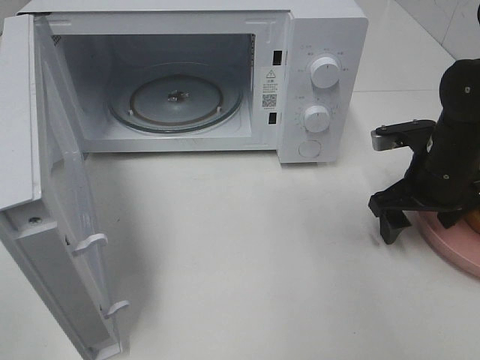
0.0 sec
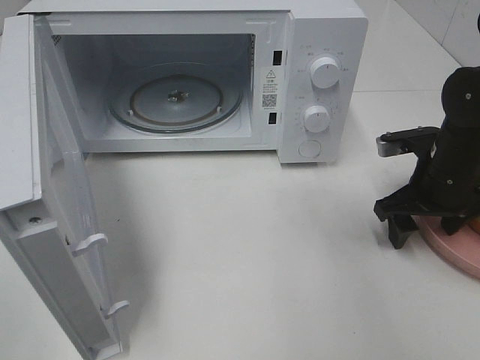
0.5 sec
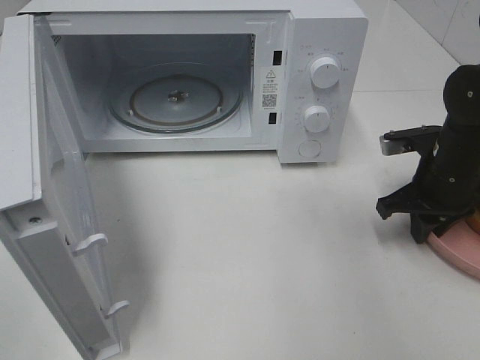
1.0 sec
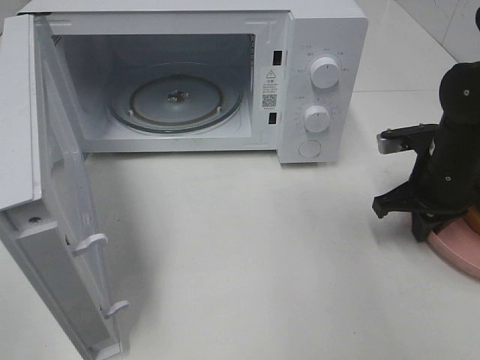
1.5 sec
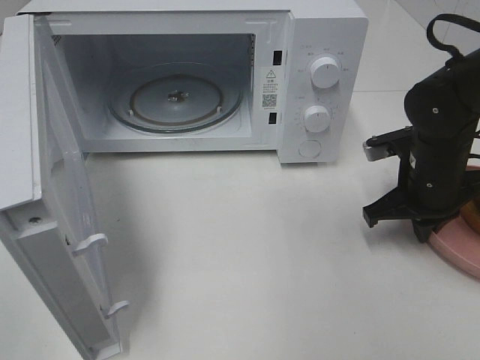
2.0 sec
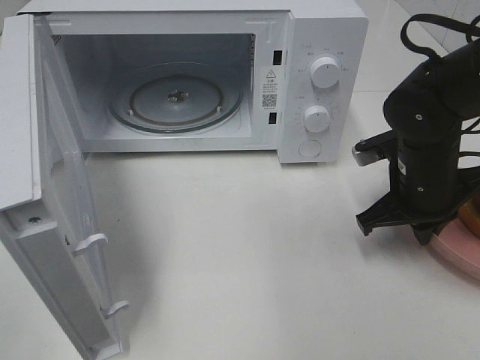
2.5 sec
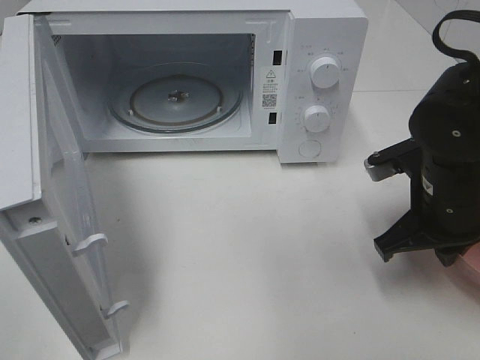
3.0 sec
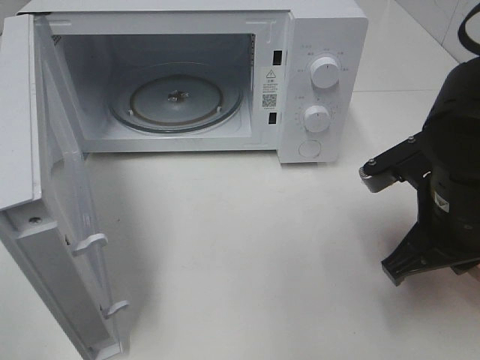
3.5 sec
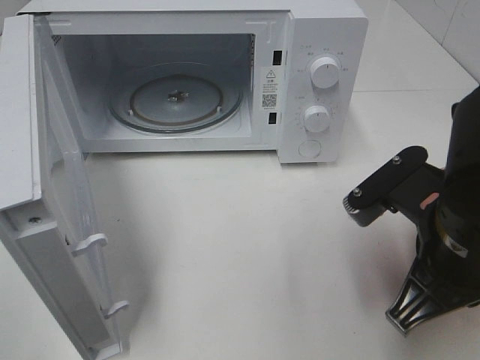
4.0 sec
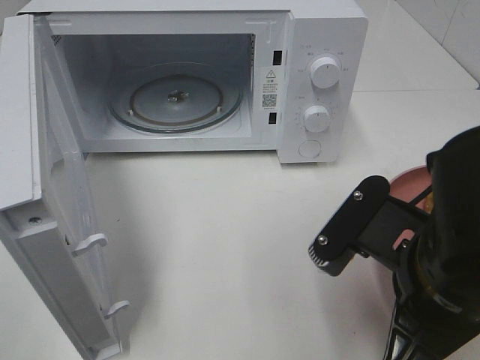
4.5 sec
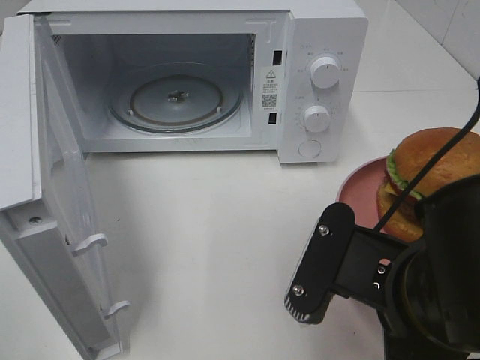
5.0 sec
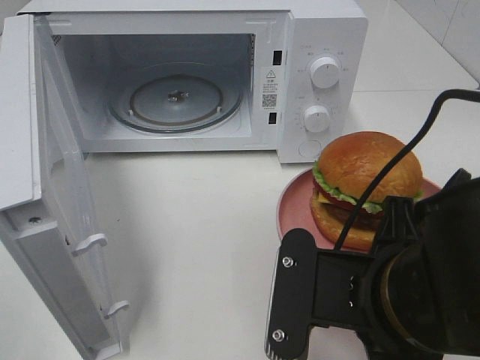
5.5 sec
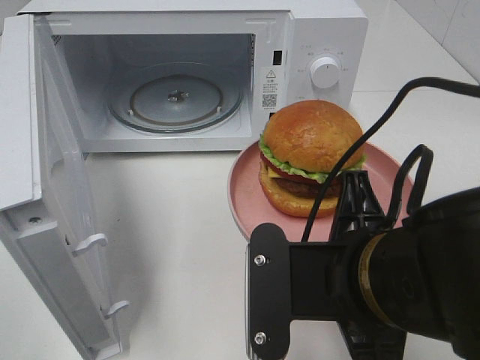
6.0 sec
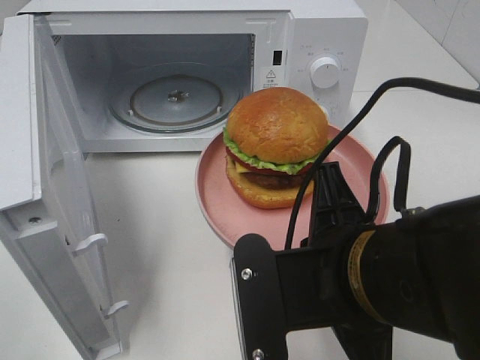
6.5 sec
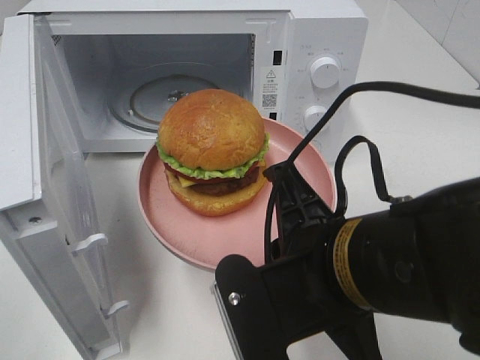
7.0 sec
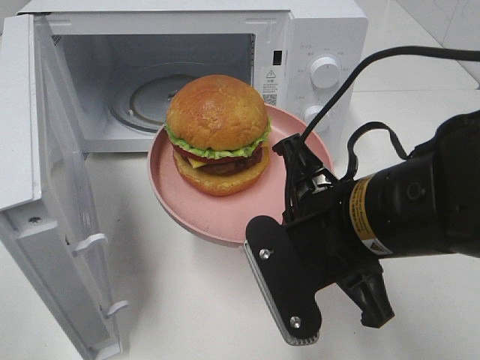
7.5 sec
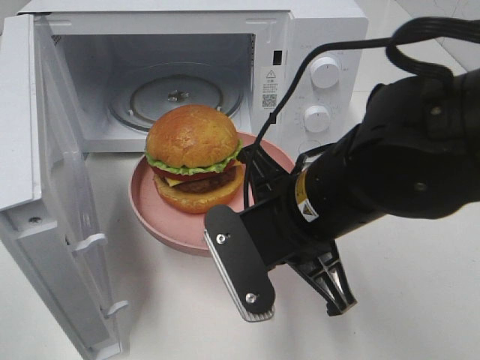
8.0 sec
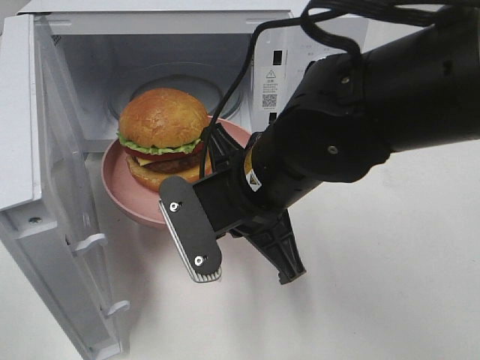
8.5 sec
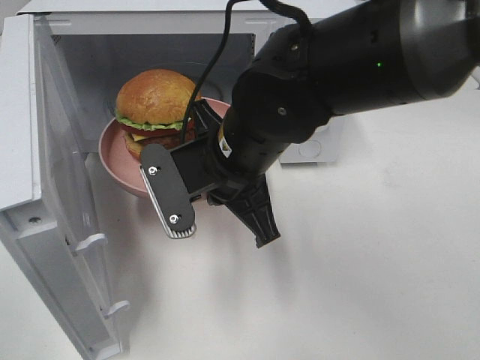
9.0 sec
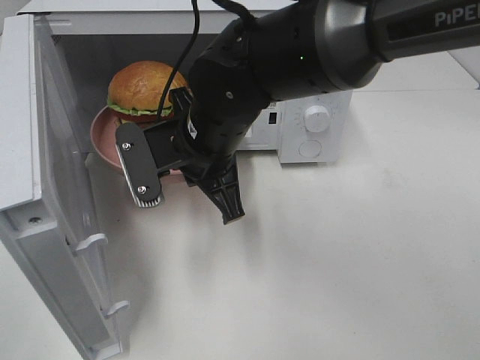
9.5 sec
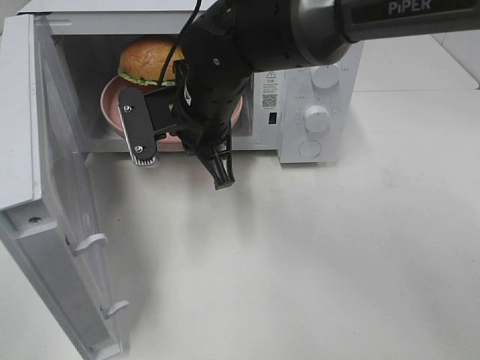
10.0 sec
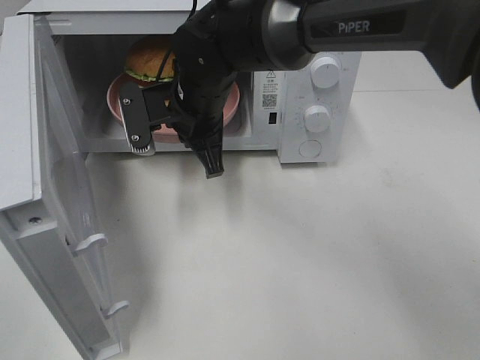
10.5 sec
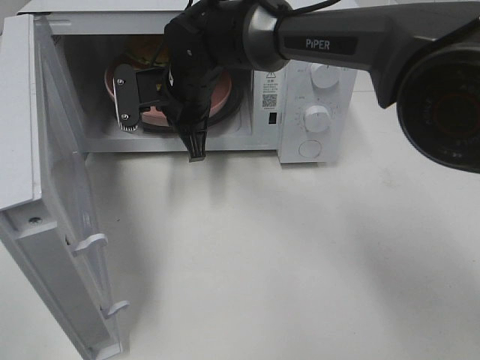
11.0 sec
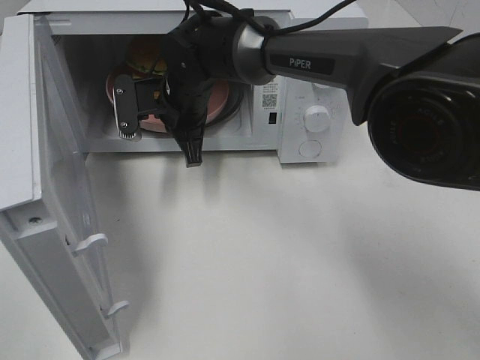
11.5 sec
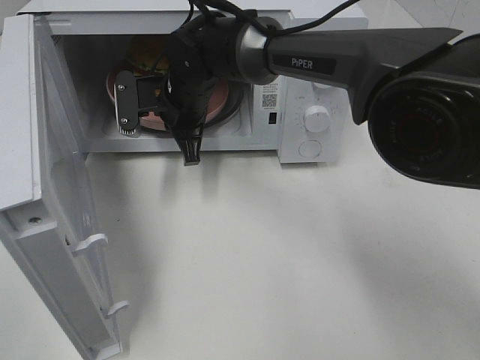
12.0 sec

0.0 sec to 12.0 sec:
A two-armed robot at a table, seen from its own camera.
Task of the whole recording: Heat the burger.
0.0 sec to 2.0 sec: The right gripper closes.
2.0 sec to 4.0 sec: The right gripper moves backward, upward and to the left, some 20 cm.
4.0 sec to 6.0 sec: The right gripper travels to the left by about 5 cm.
6.0 sec to 8.0 sec: The right gripper shifts about 10 cm forward.
8.0 sec to 10.0 sec: The right gripper moves forward and to the left, some 15 cm.
10.0 sec to 12.0 sec: The right gripper heads forward, covering some 10 cm.

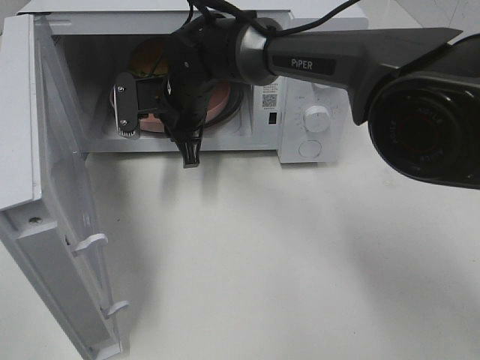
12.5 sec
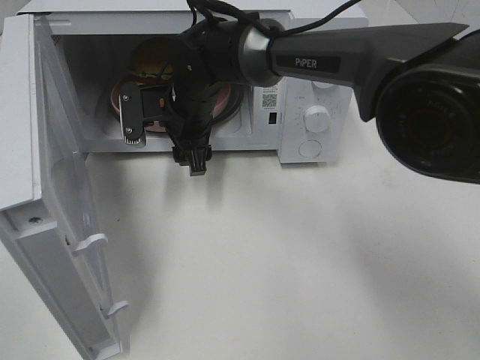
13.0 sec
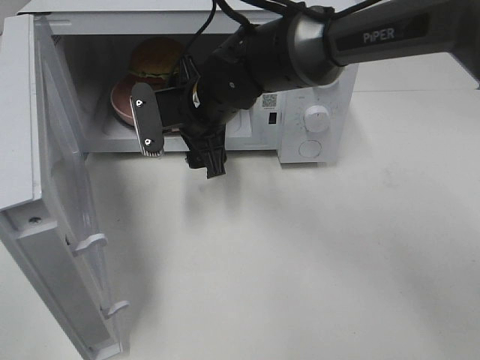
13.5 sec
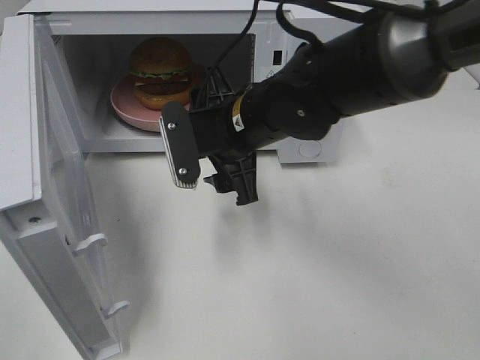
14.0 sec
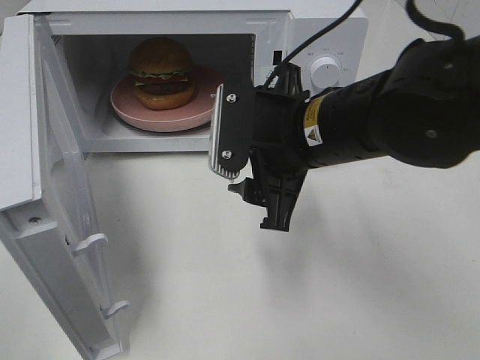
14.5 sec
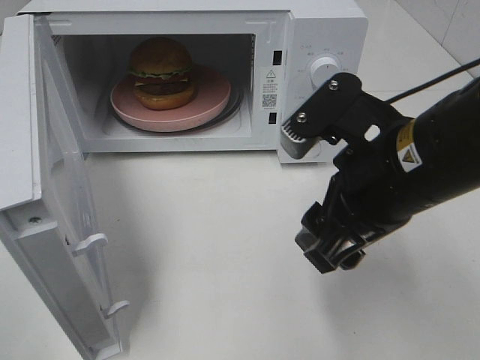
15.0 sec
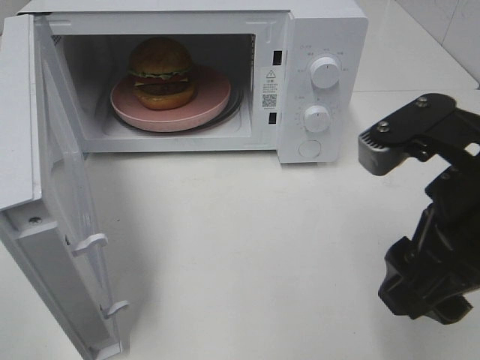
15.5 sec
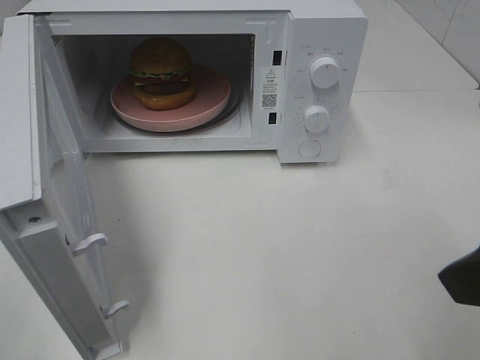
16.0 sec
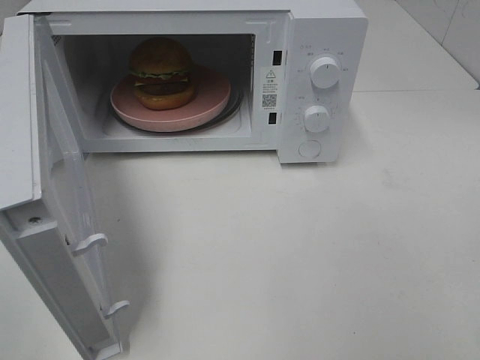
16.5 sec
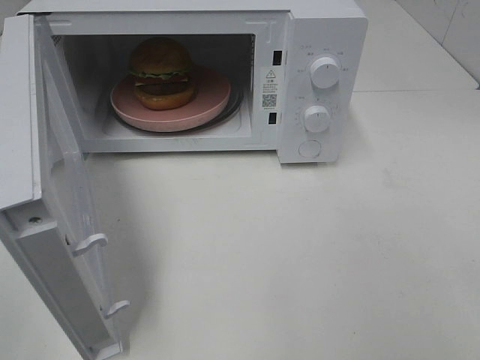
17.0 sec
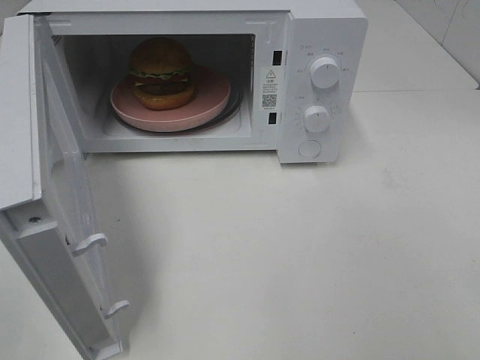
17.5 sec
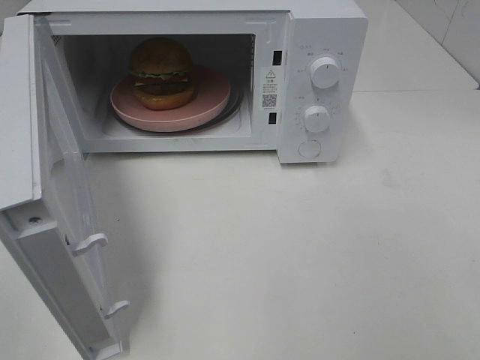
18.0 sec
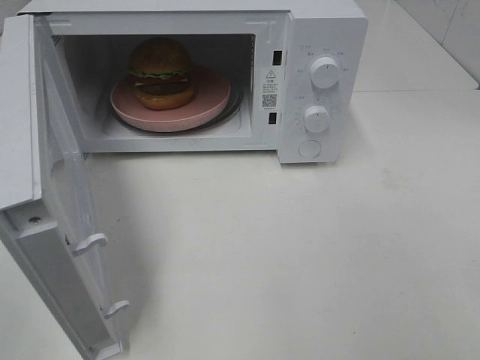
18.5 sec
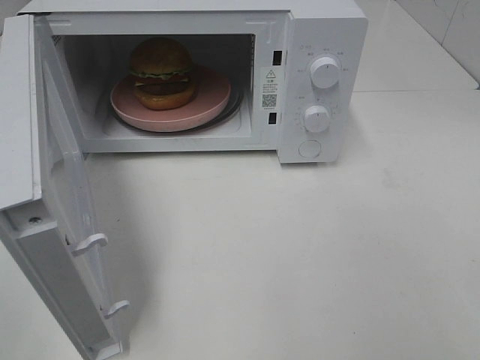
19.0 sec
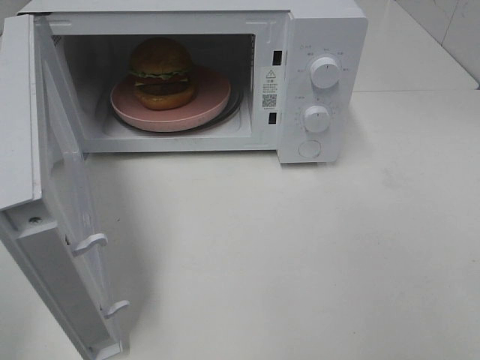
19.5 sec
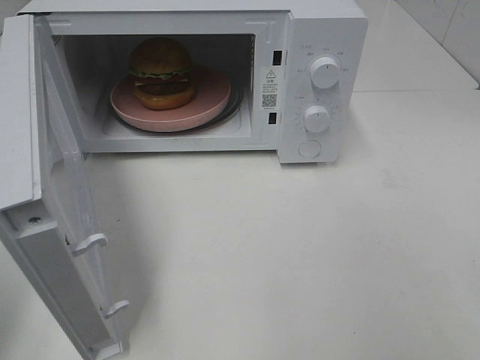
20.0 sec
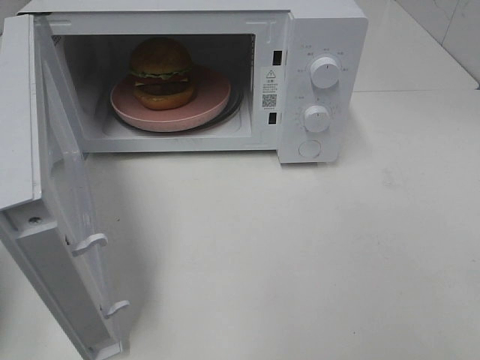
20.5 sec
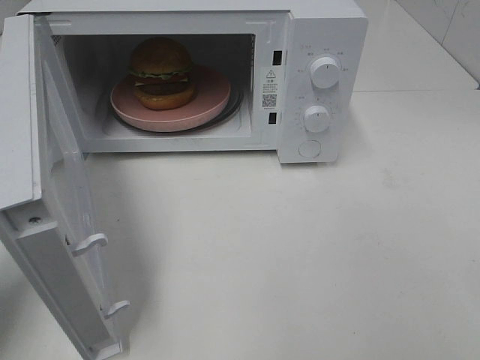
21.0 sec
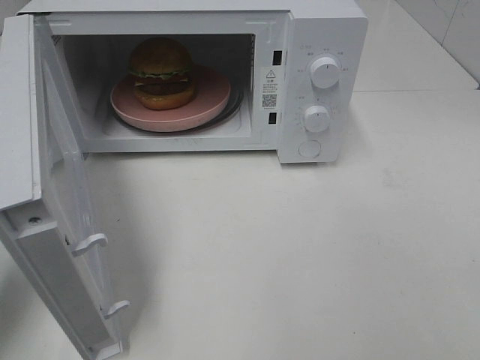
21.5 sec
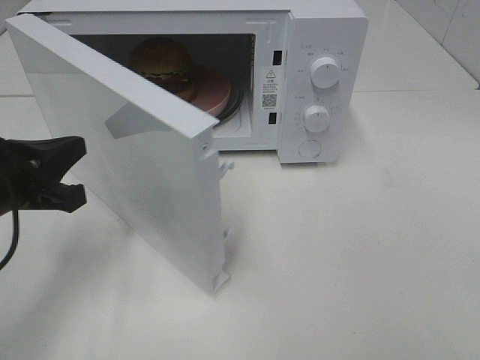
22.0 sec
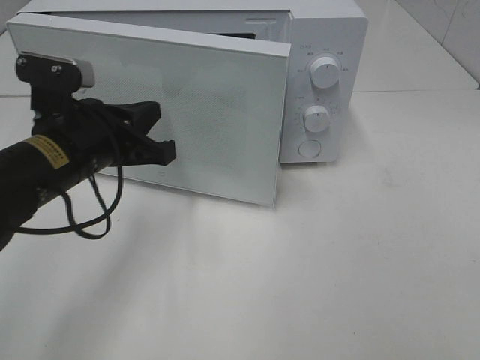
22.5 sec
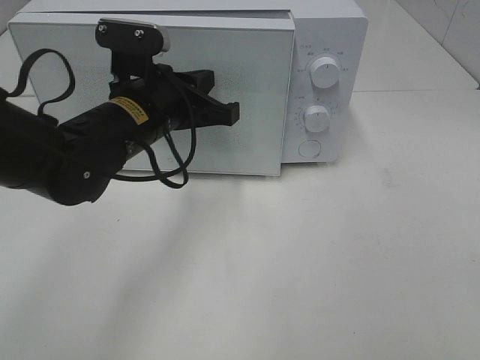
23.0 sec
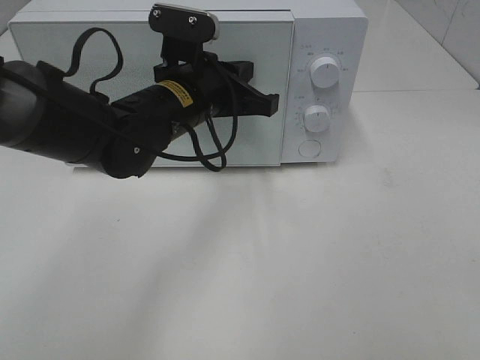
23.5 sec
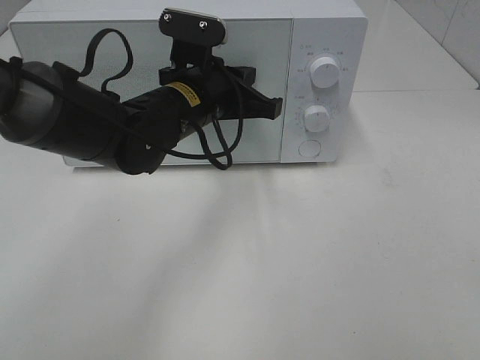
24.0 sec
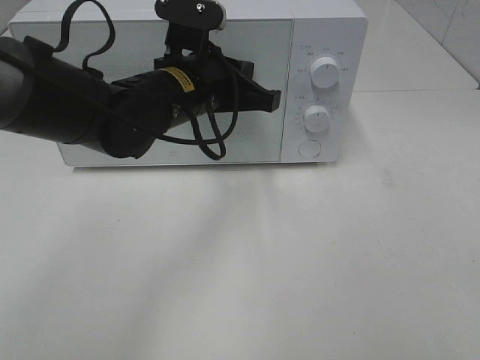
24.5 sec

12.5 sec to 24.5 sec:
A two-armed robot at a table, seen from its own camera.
Task of the whole recording: Heat the burger.
Step, 13.5 sec to 24.5 sec: Left hand: close the microwave door.
12.5 sec to 14.5 sec: The right gripper moves backward and to the right, approximately 20 cm, and opens its fingers.
14.5 sec to 16.5 sec: The right gripper travels to the right, backward and upward by approximately 30 cm.
20.5 sec to 22.5 sec: The left gripper travels to the right and forward by about 25 cm.
22.5 sec to 24.5 sec: The left gripper heads to the right and forward, covering approximately 10 cm.

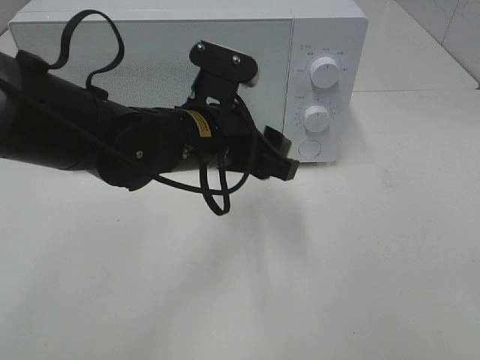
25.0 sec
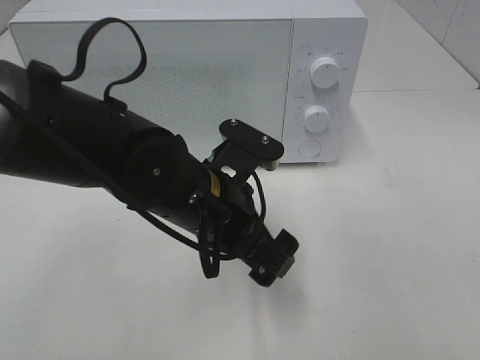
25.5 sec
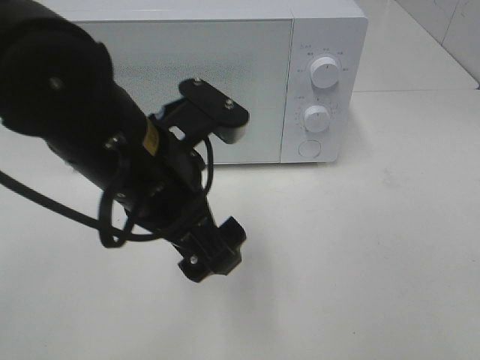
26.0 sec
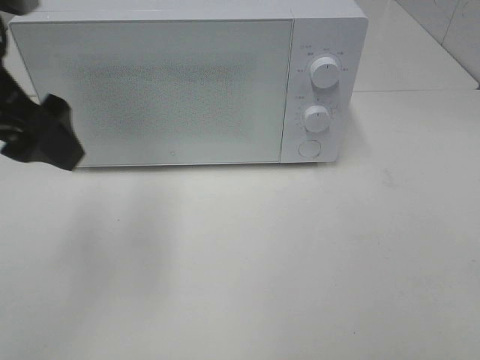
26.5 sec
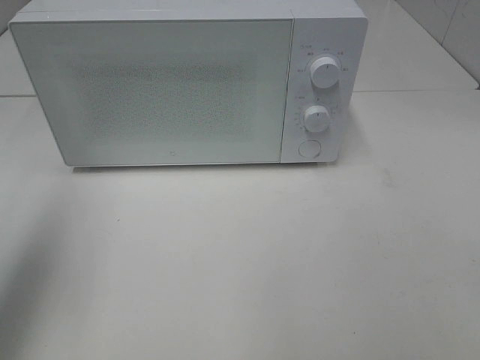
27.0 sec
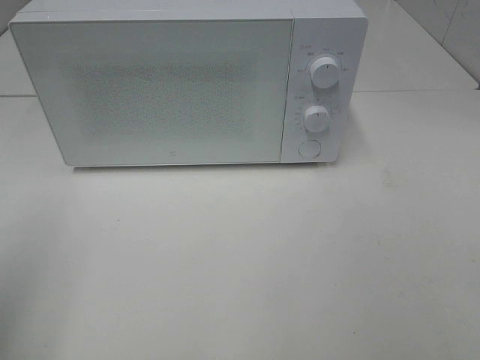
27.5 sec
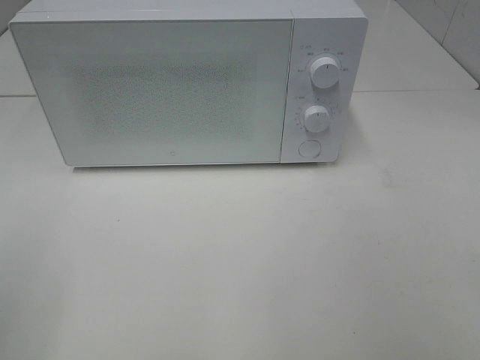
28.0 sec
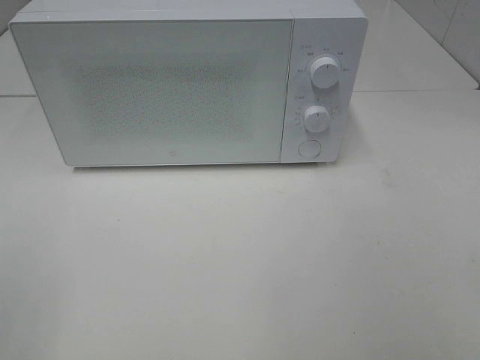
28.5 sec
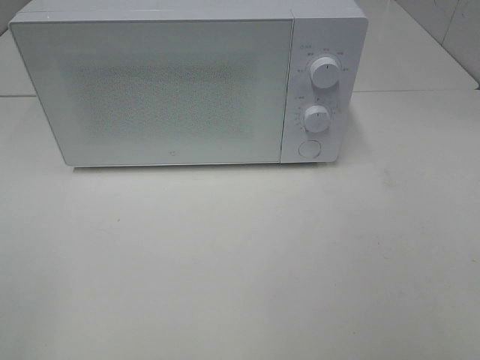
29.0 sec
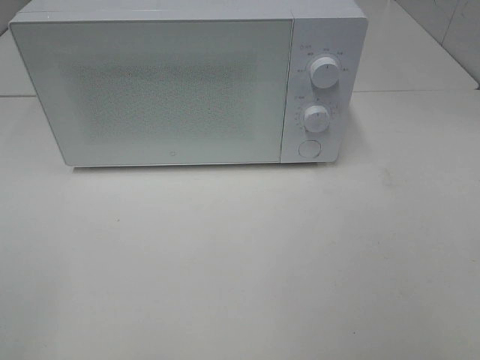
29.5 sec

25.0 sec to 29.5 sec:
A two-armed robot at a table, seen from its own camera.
Task of the whole recording: Heat the burger.
25.0 sec to 27.0 sec: The left gripper goes approximately 30 cm to the left and upward.
27.0 sec to 29.5 sec: The left gripper travels backward by some 20 cm.
